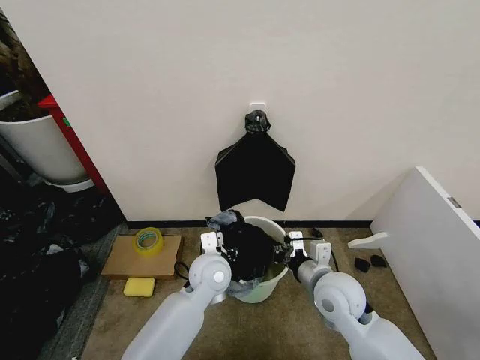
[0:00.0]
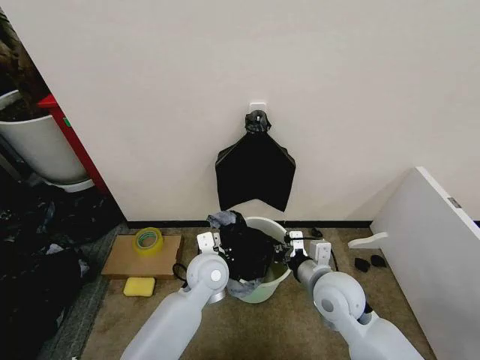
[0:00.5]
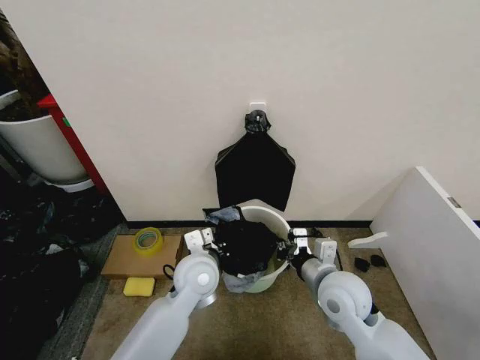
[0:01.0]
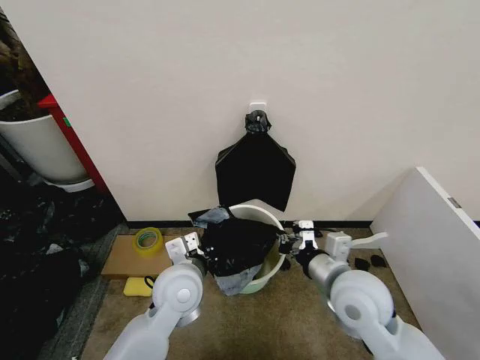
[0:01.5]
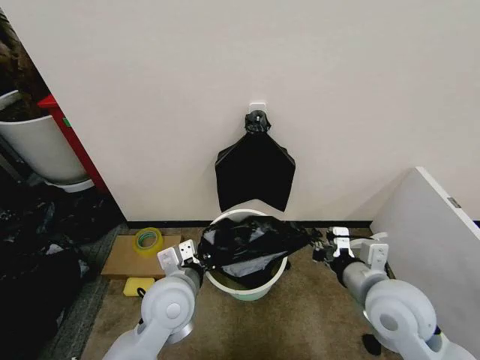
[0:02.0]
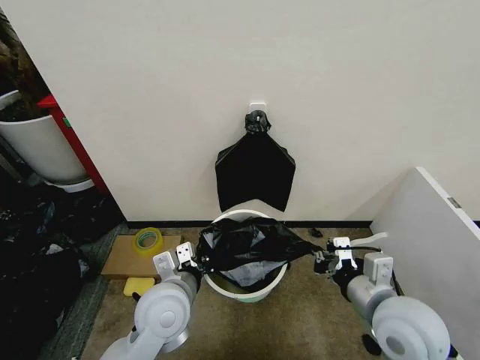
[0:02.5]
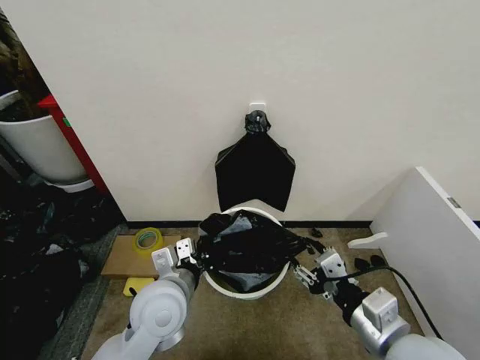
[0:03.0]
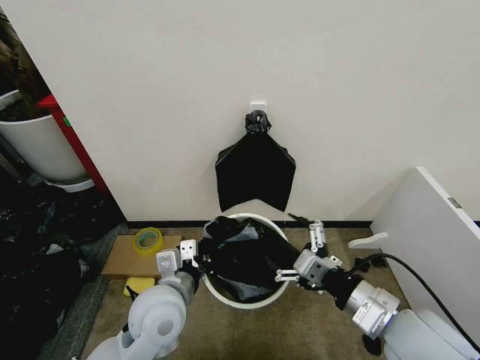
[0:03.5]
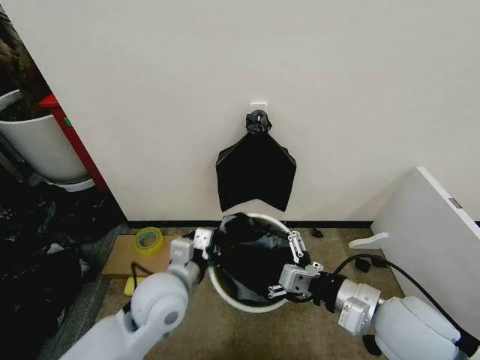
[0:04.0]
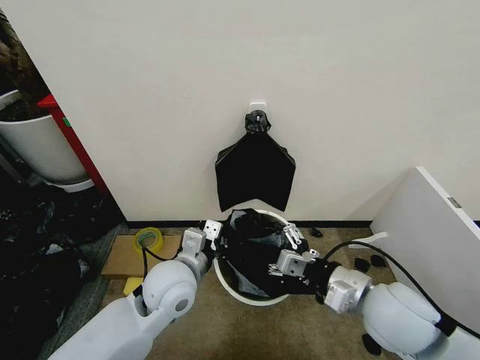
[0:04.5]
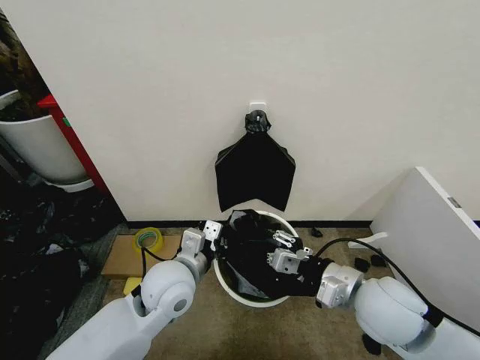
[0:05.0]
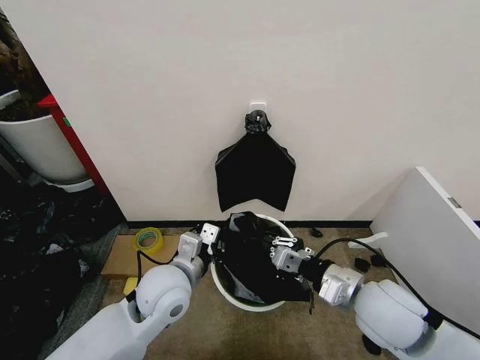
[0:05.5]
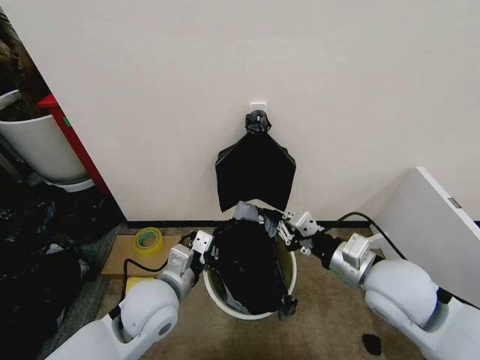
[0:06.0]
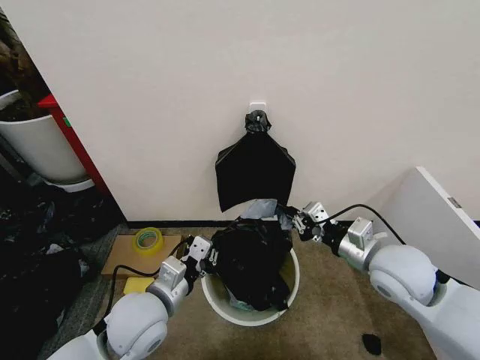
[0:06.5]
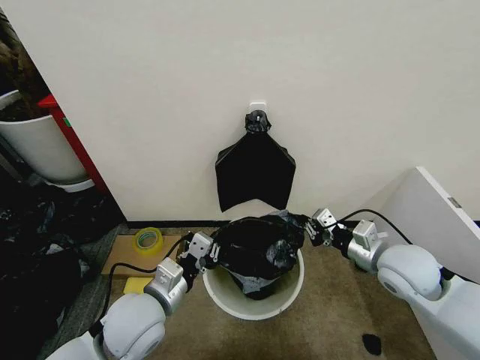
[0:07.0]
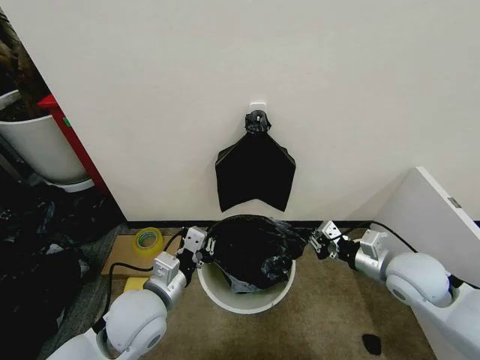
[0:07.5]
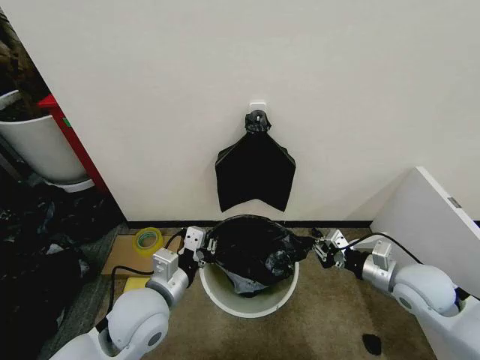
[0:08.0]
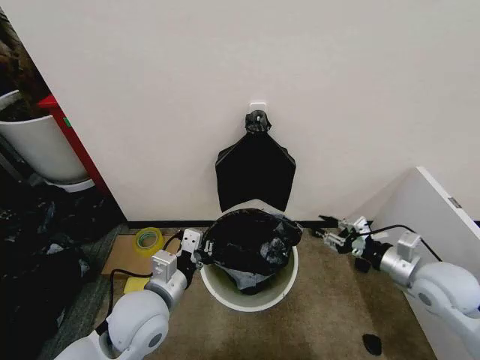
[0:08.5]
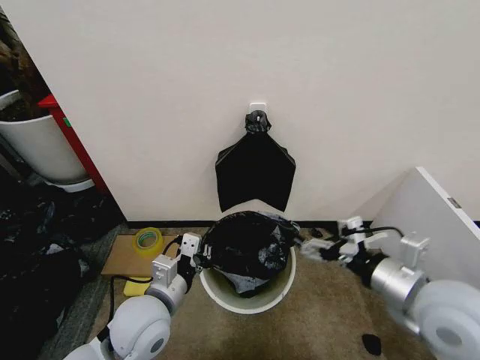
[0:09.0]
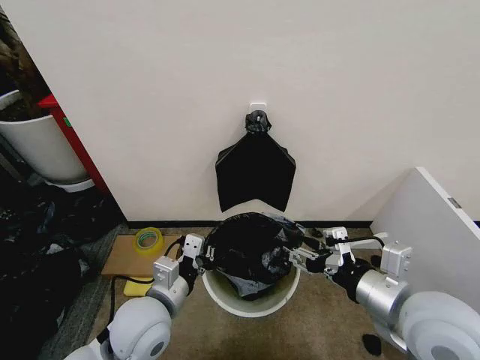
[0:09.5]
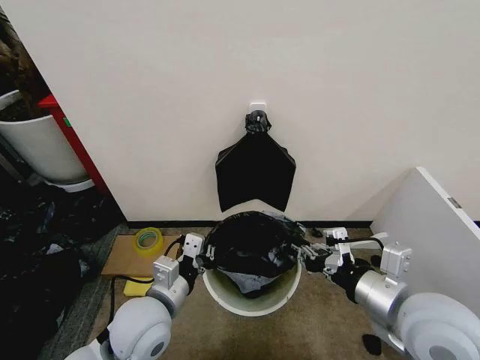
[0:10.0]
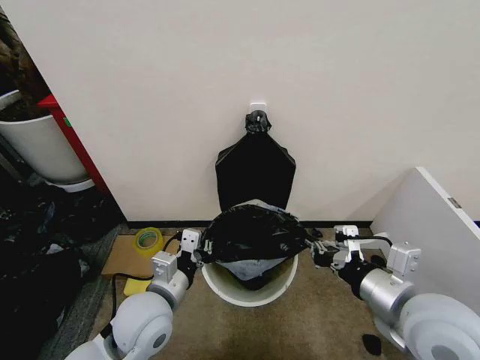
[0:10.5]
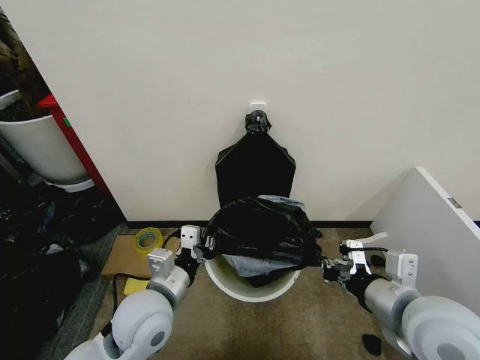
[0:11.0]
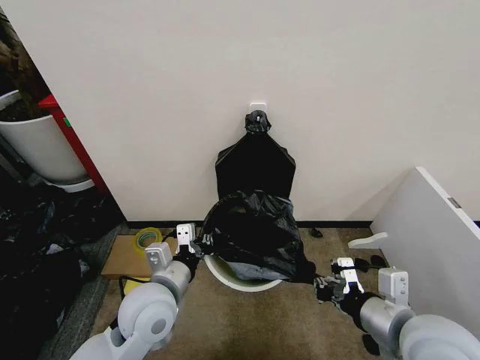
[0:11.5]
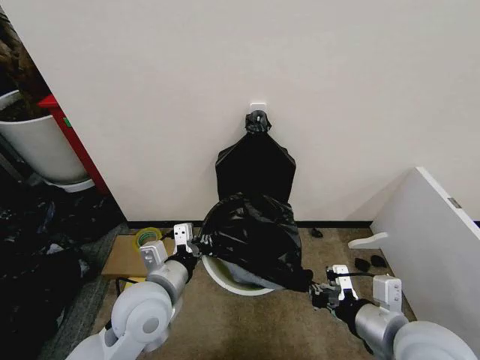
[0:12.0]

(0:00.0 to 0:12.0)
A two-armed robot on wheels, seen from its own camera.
Task of the whole recording: Place the garbage bag over the trash bin.
0:00.0 - 0:02.0: The left gripper shifts roughly 10 cm backward, to the left and upward, and closes its fingers, while the right gripper travels upward and to the right by about 10 cm.
0:02.0 - 0:04.0: The right gripper opens its fingers.
0:04.0 - 0:06.0: The right gripper goes approximately 5 cm forward, and closes up.
0:06.0 - 0:08.0: The right gripper is displaced to the right and downward by approximately 15 cm.
0:08.0 - 0:10.0: The right gripper travels upward, backward and to the left by roughly 20 cm, and opens, then closes once more.
0:10.0 - 0:12.0: The right gripper moves approximately 5 cm.

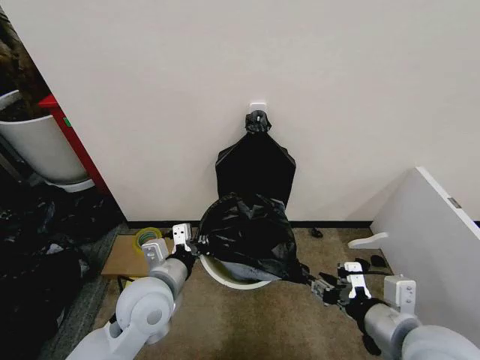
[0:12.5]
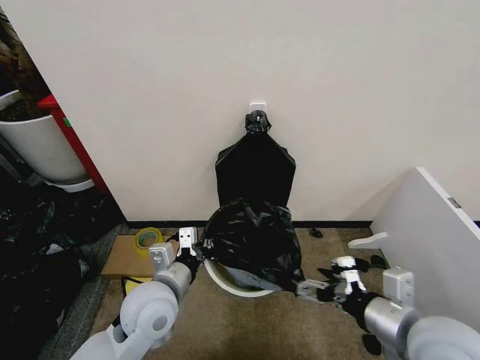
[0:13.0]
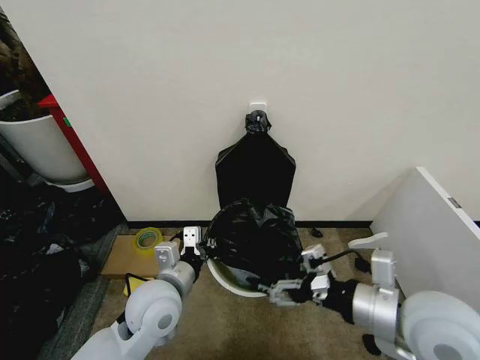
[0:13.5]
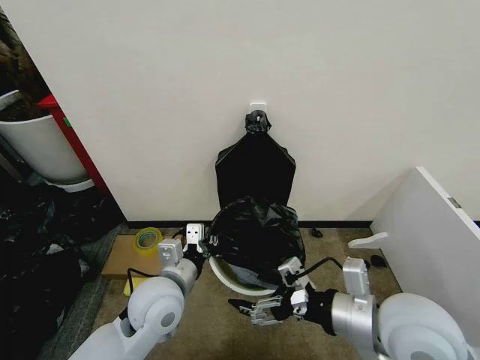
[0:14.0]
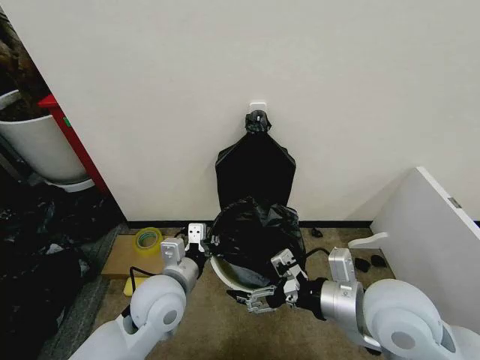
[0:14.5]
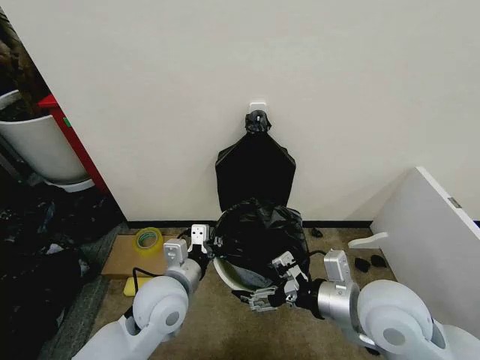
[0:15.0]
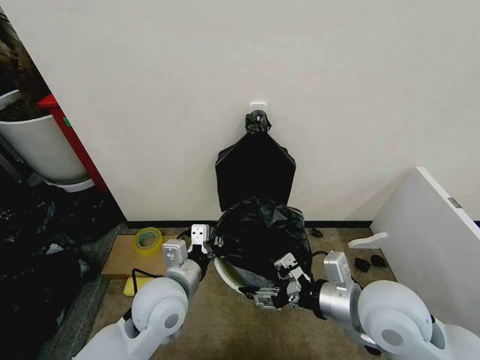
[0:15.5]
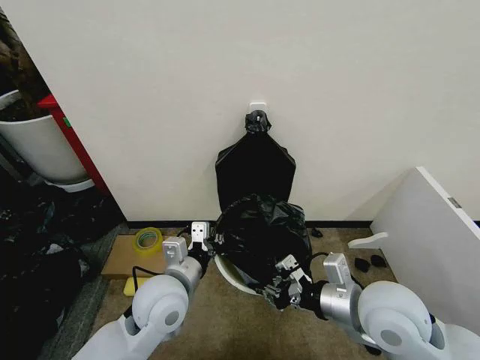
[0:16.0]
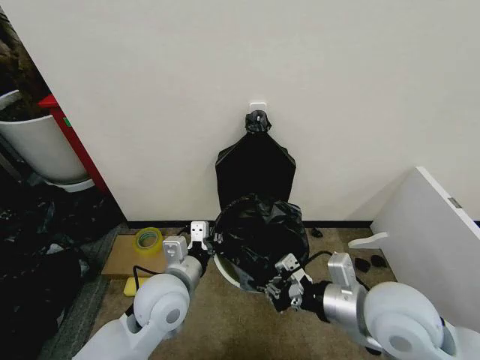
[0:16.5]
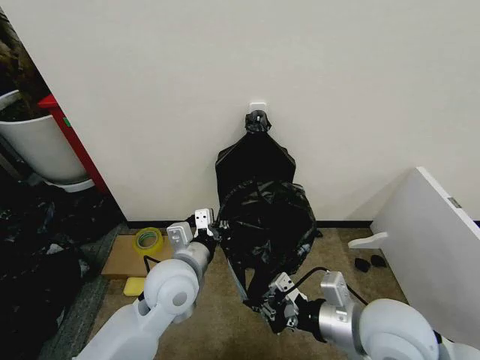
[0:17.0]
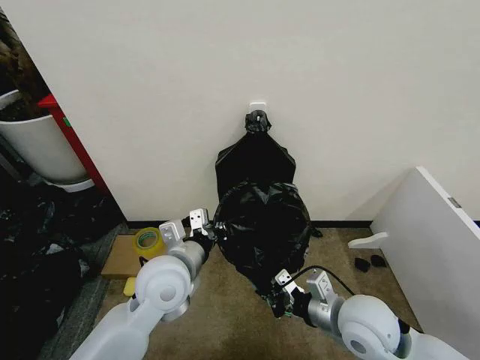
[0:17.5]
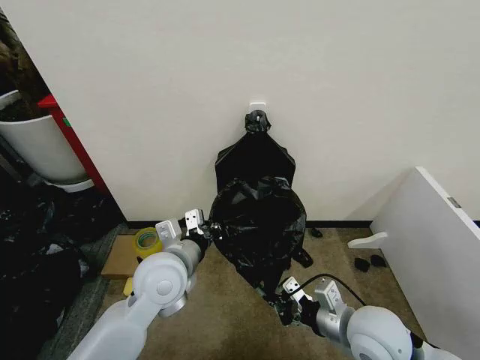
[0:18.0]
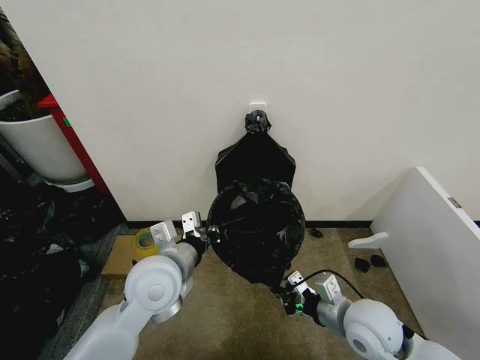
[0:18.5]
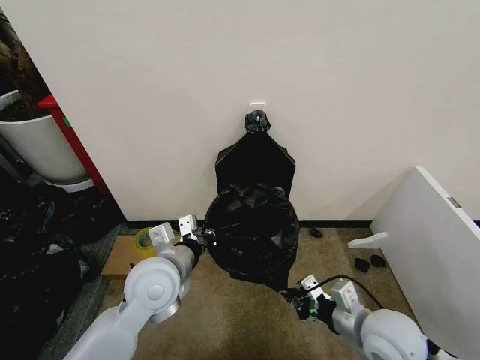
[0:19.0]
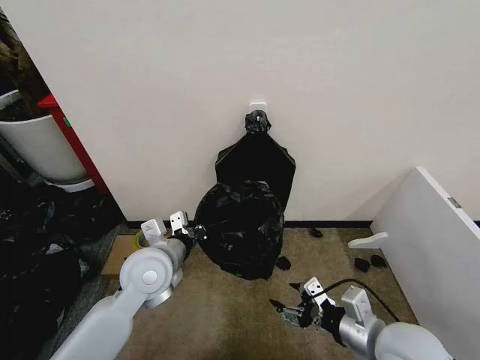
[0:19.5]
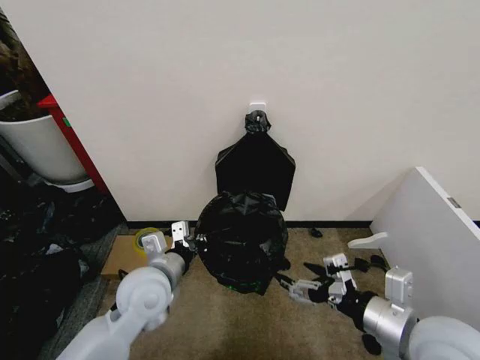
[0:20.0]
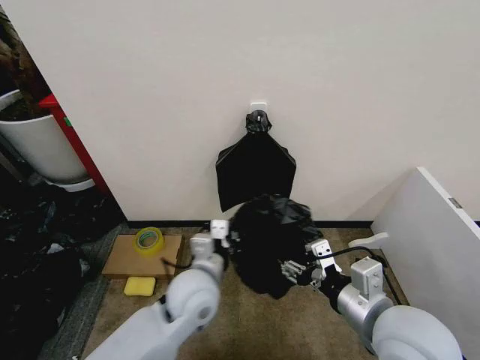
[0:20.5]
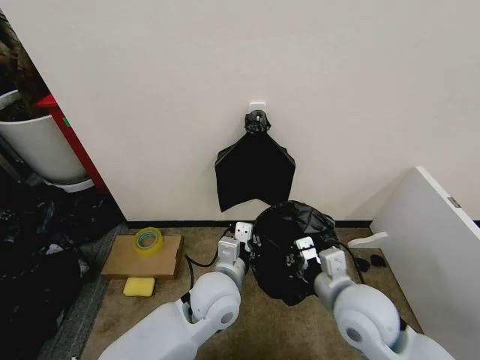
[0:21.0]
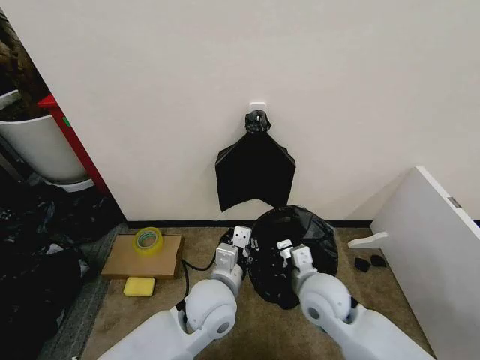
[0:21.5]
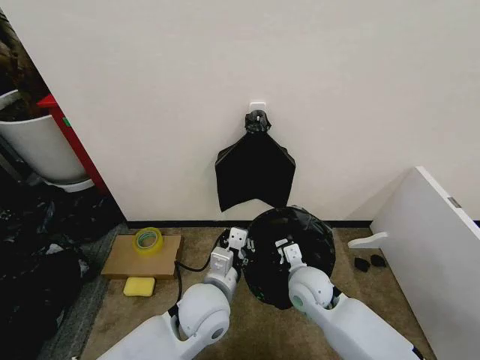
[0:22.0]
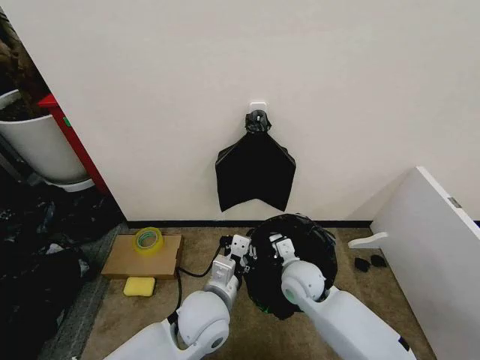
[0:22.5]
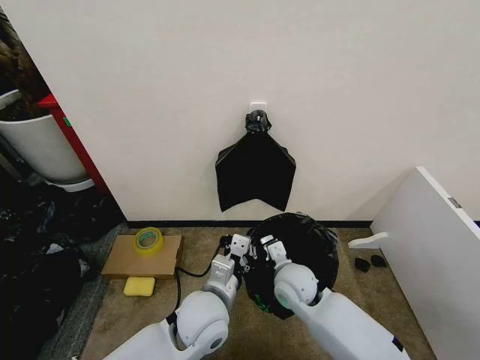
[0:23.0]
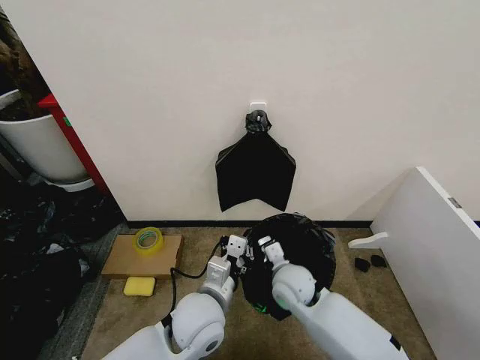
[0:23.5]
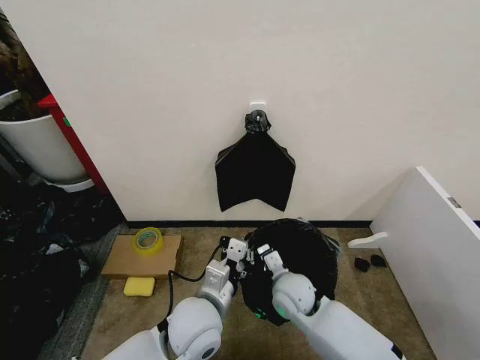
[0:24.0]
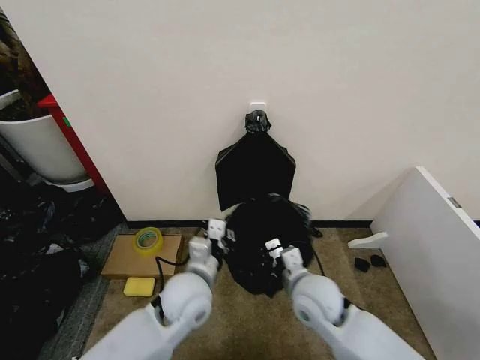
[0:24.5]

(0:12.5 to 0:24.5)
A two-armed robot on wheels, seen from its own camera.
Task of the whole recording: Place the garbage bag over the trash bin.
0:12.5 - 0:14.5: The right gripper travels forward by roughly 5 cm, and opens its fingers.
0:14.5 - 0:16.5: The right gripper closes its fingers.
0:16.5 - 0:18.5: The right gripper goes some 10 cm downward.
0:18.5 - 0:20.5: The left gripper goes some 10 cm to the right and downward, while the right gripper goes about 15 cm upward and backward, and opens.
0:20.5 - 0:22.5: The right gripper heads downward, forward and to the left, covering about 25 cm, and closes its fingers.
0:22.5 - 0:24.5: The right gripper moves backward, some 5 cm; the left gripper ends up about 5 cm from where it was.

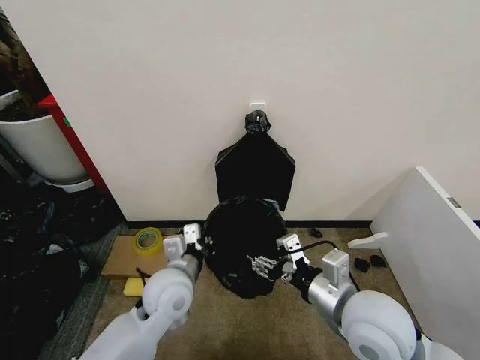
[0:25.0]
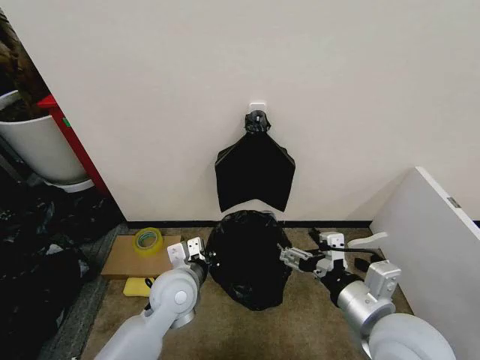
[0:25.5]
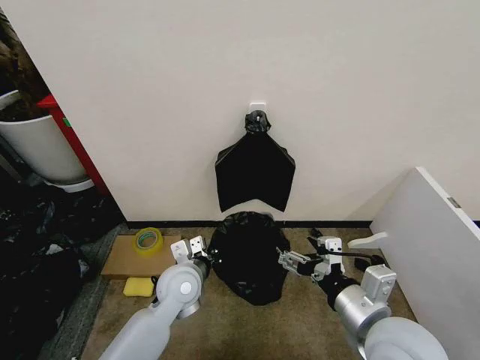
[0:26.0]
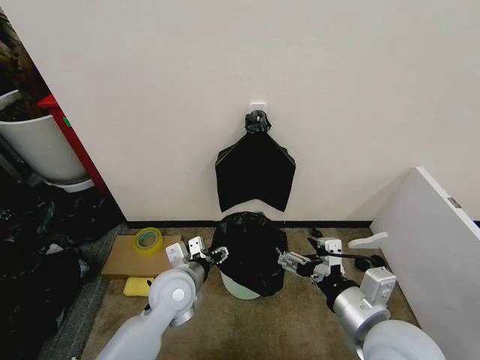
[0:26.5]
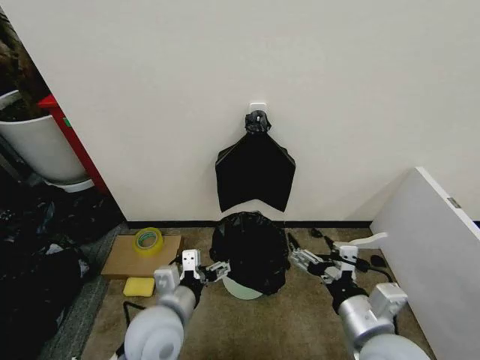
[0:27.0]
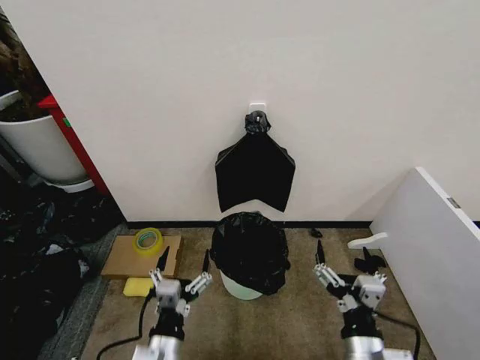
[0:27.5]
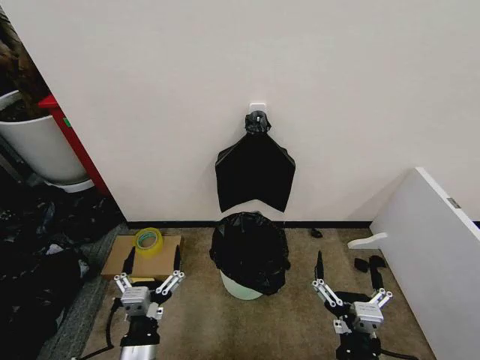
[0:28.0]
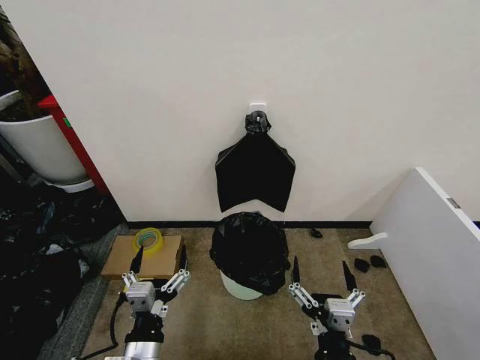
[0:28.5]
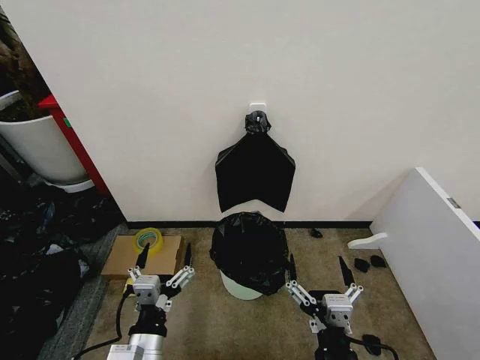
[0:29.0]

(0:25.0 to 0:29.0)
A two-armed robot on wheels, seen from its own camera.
Task of the whole recording: Place the garbage bag over the trash bin.
0:25.0 - 0:27.0: The two grippers go some 5 cm backward. The right gripper opens up. The left gripper opens its fingers.
0:27.0 - 0:29.0: The right gripper goes roughly 15 cm backward, to the left and downward; the left gripper goes approximately 10 cm backward.
